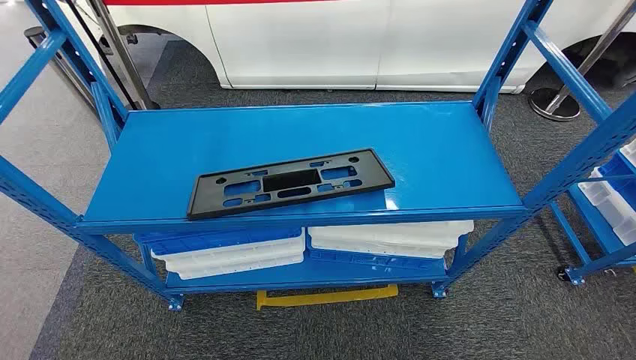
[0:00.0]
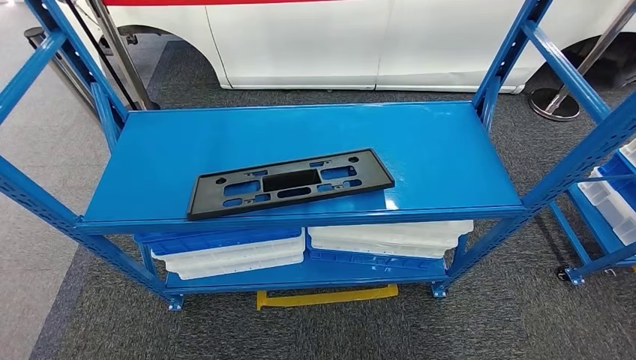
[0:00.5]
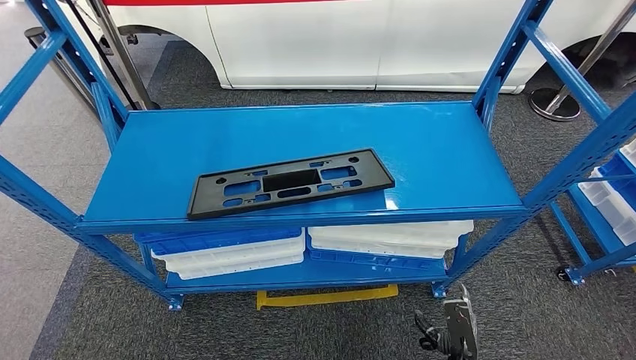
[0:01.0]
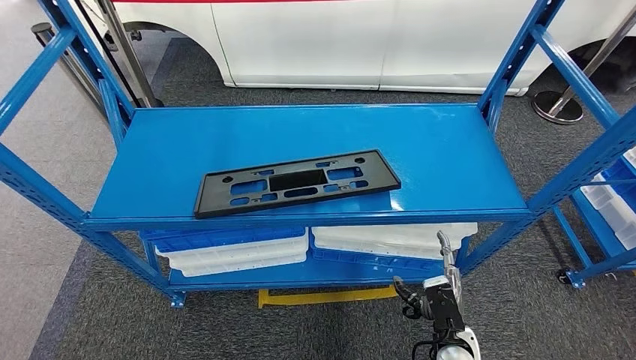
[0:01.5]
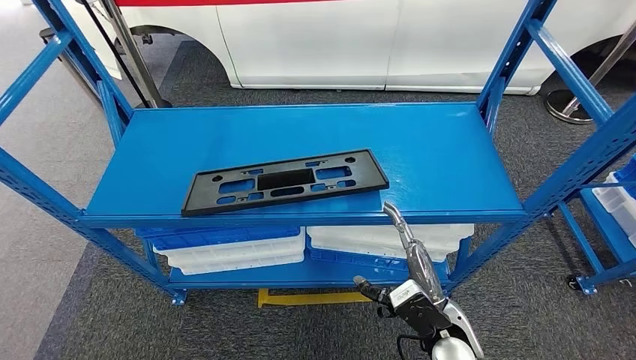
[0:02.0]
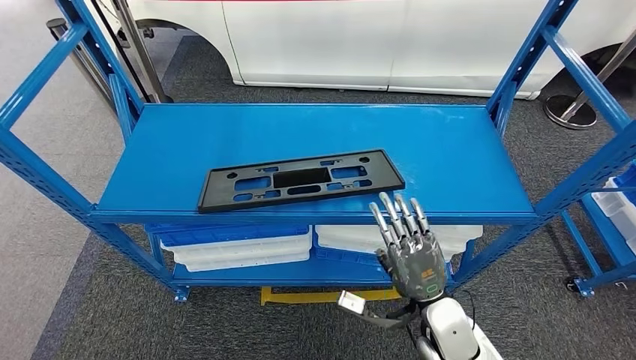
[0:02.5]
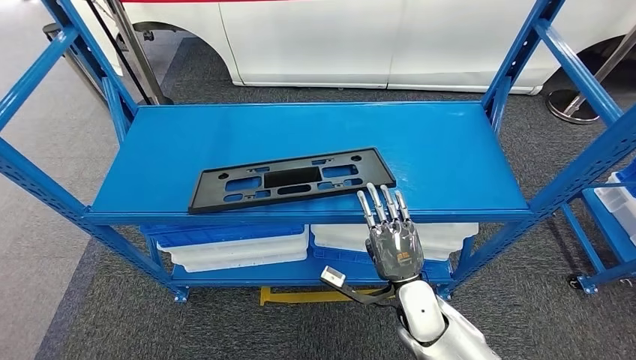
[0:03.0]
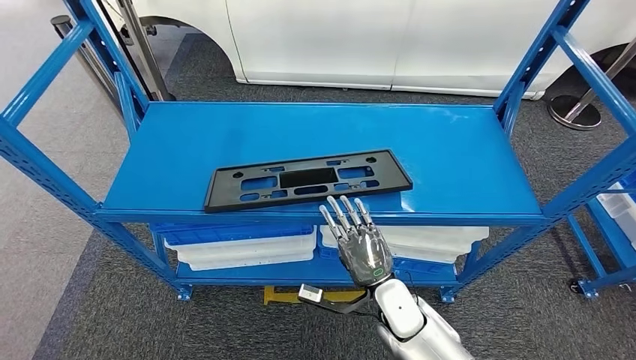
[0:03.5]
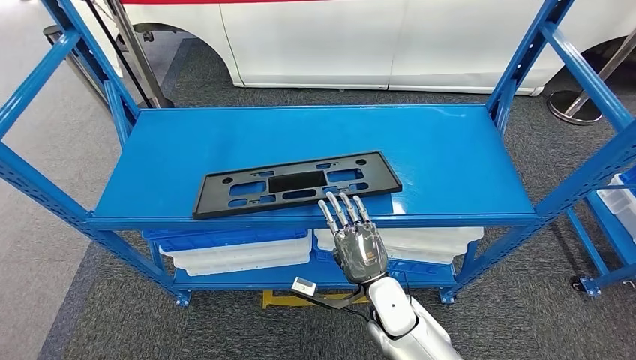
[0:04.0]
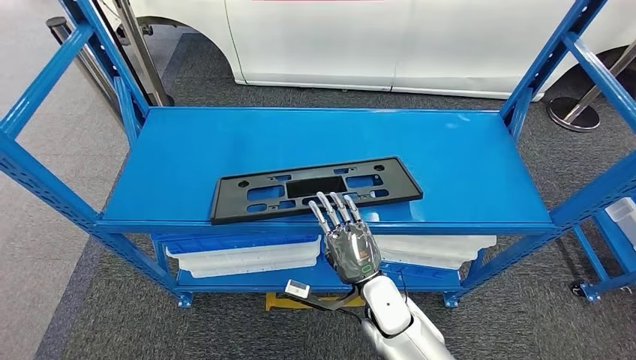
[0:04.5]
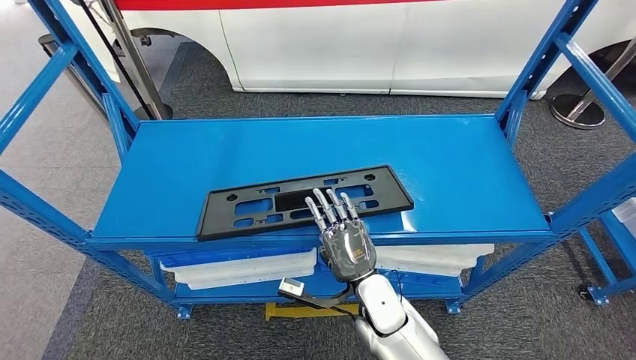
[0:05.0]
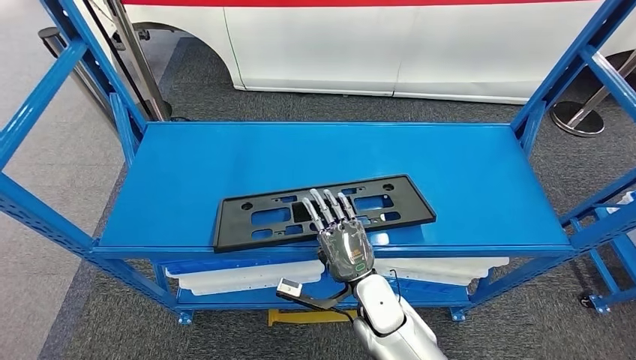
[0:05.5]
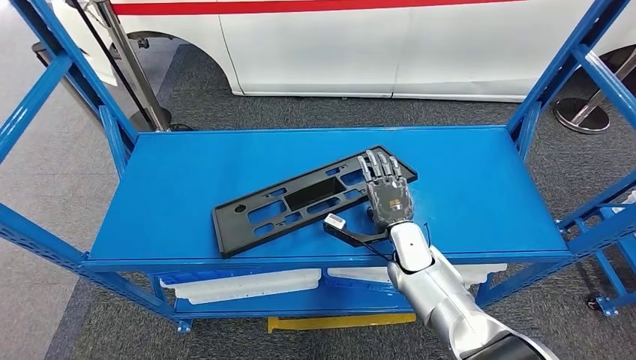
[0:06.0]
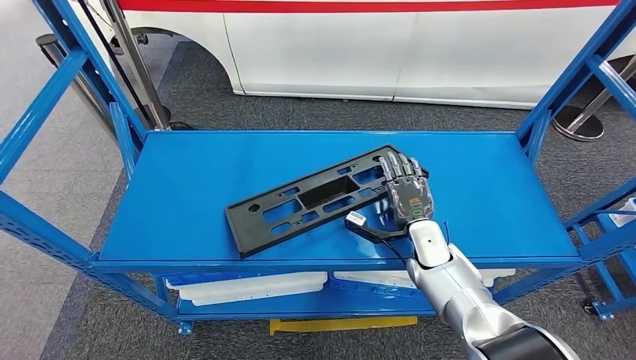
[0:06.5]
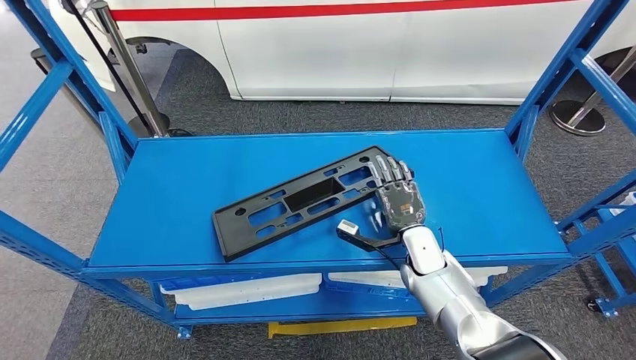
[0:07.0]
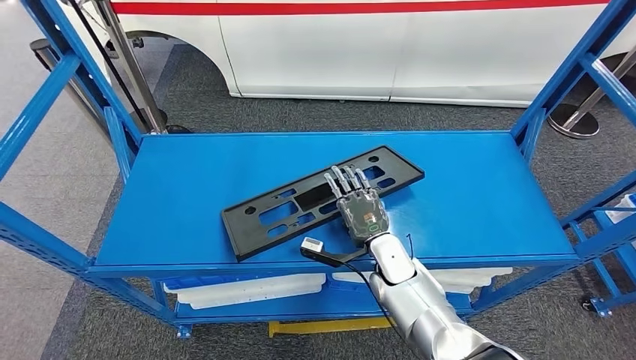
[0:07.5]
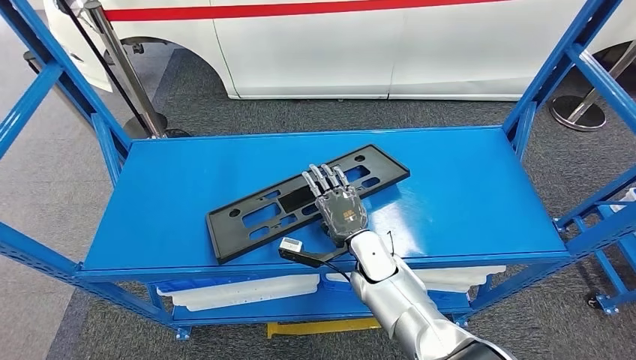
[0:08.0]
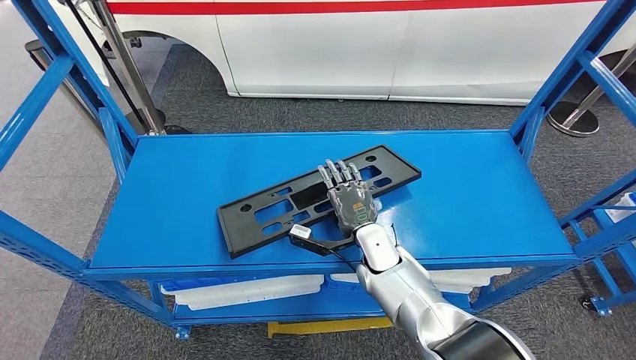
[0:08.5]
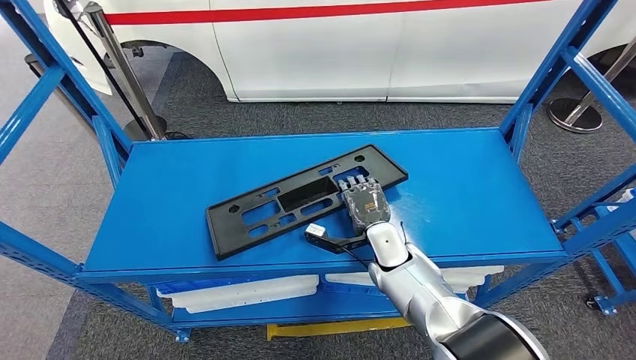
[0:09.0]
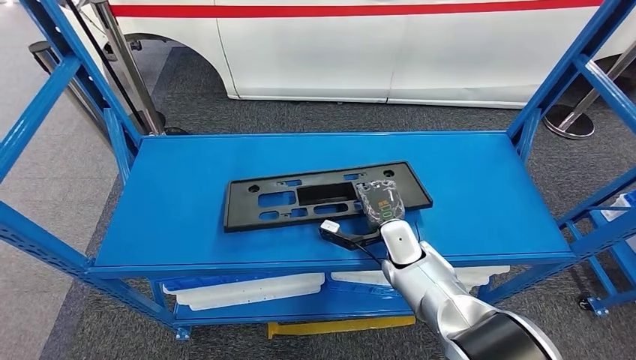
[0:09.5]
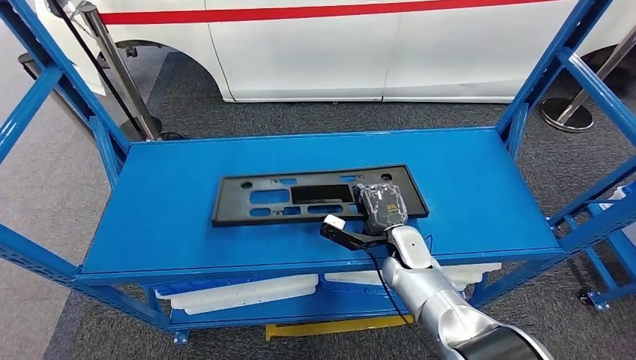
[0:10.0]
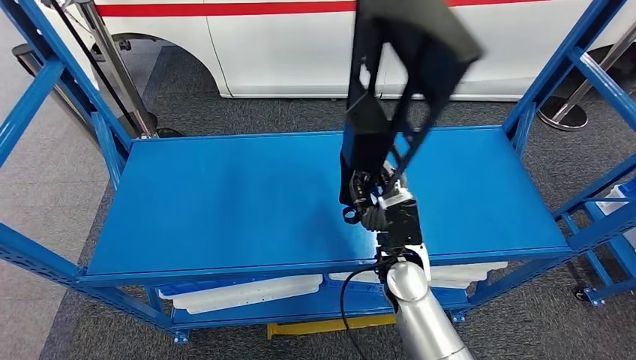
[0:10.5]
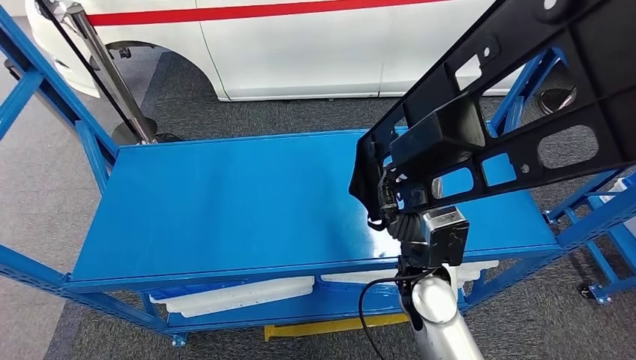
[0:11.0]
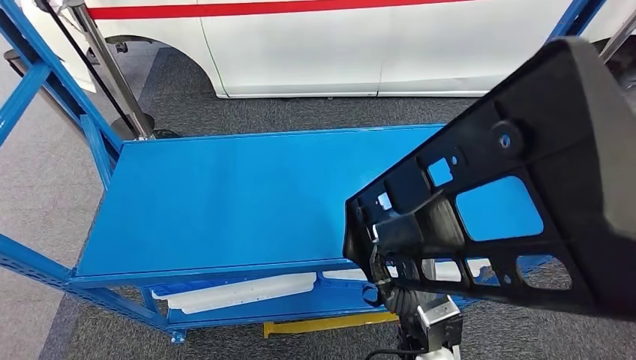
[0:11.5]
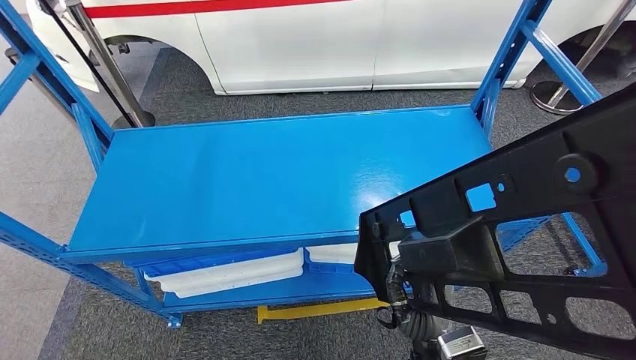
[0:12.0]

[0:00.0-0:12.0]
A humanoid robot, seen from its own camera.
Step, 0:00.0 to 0:11.5: Pick up the large material from the shelf.

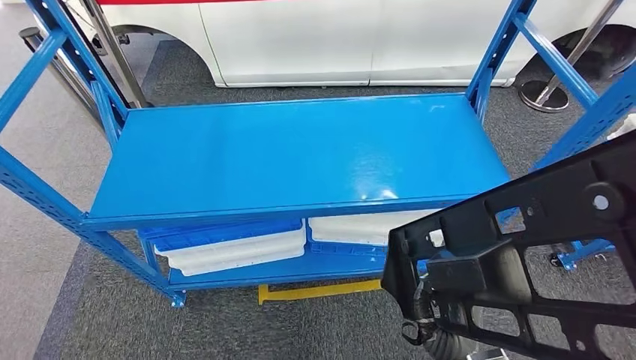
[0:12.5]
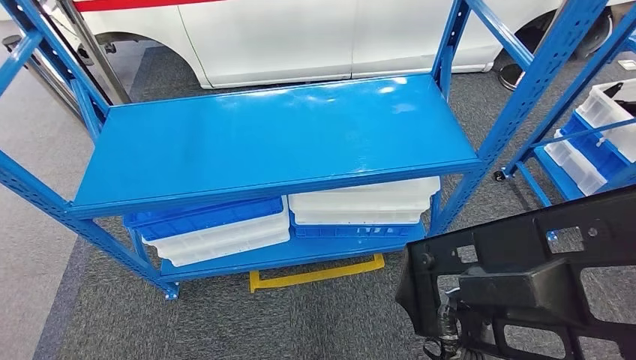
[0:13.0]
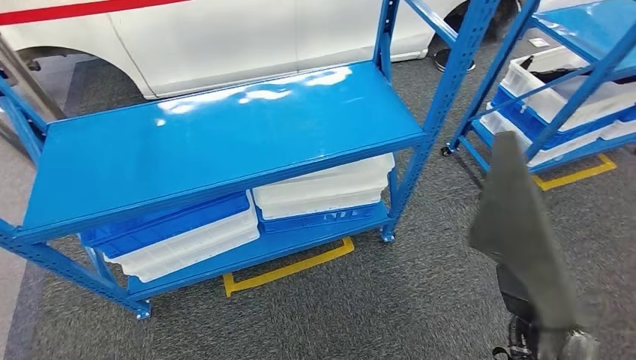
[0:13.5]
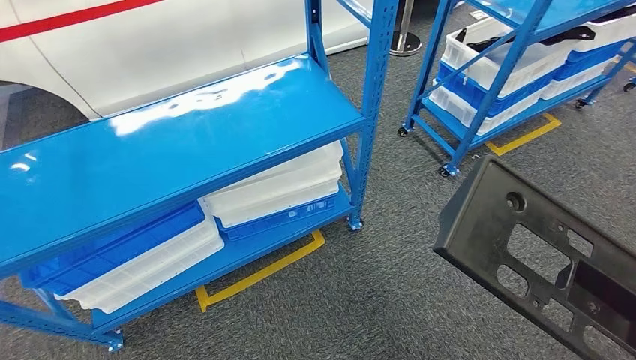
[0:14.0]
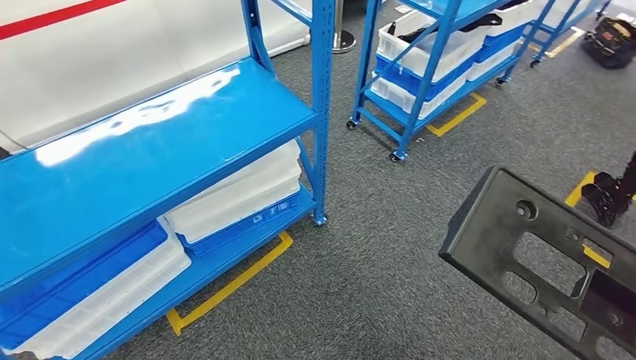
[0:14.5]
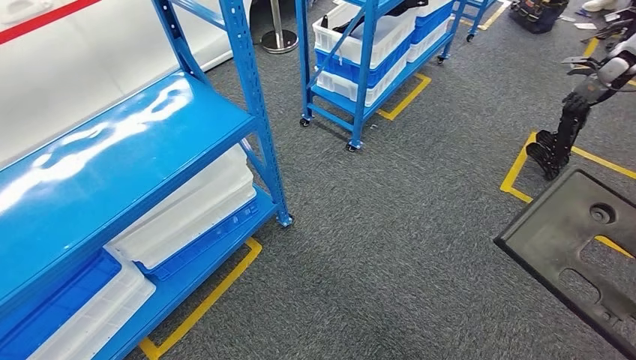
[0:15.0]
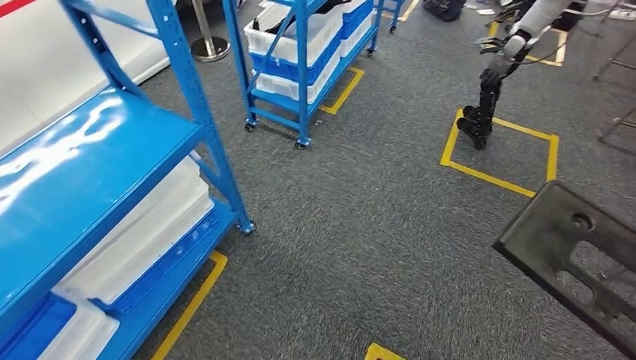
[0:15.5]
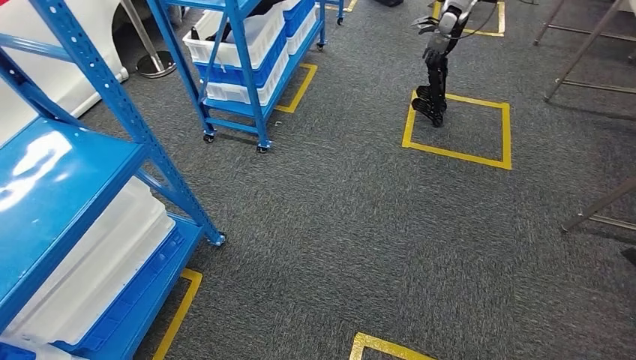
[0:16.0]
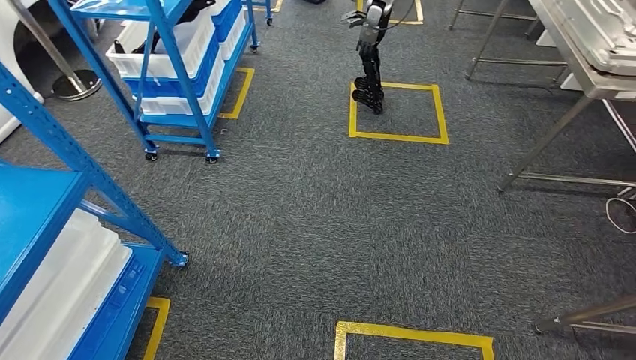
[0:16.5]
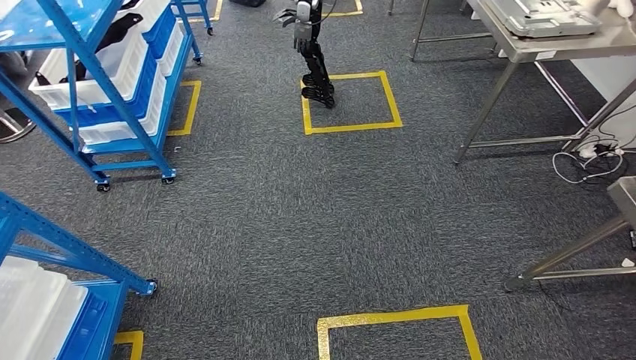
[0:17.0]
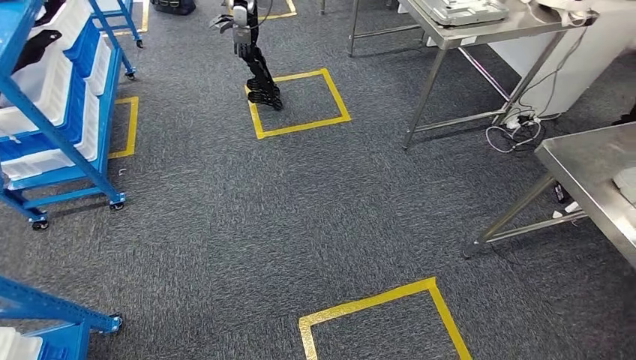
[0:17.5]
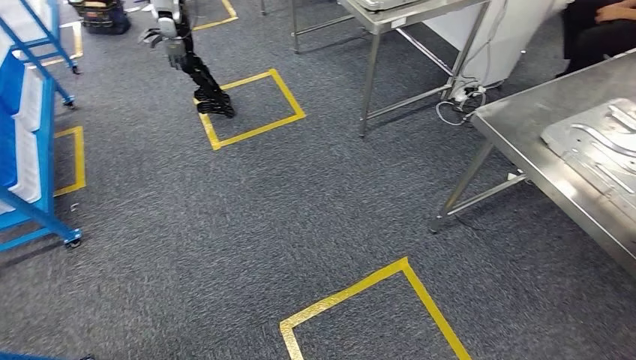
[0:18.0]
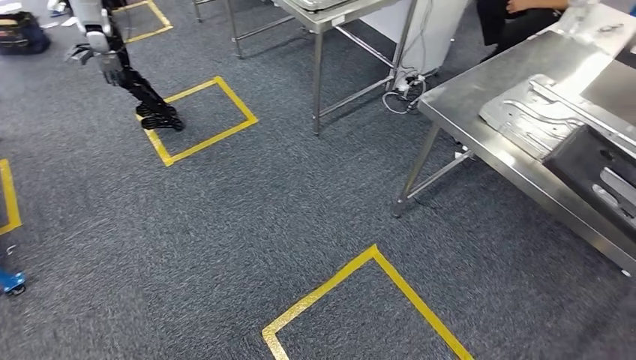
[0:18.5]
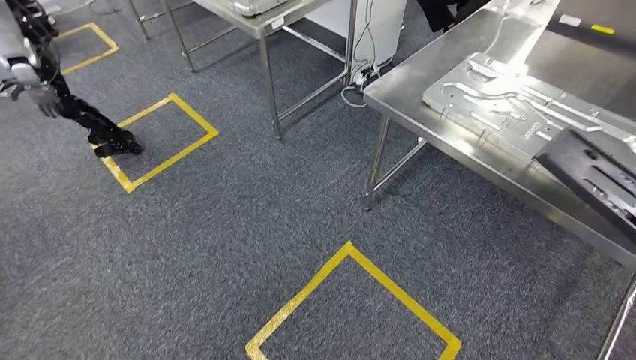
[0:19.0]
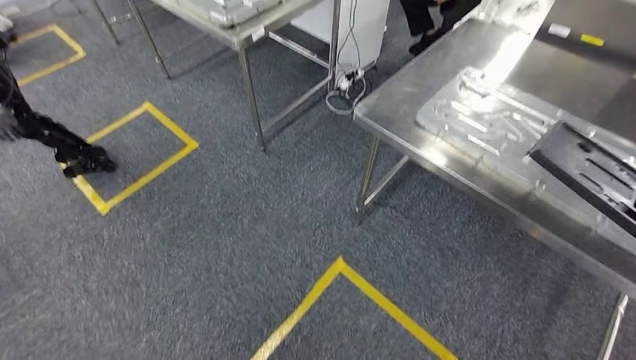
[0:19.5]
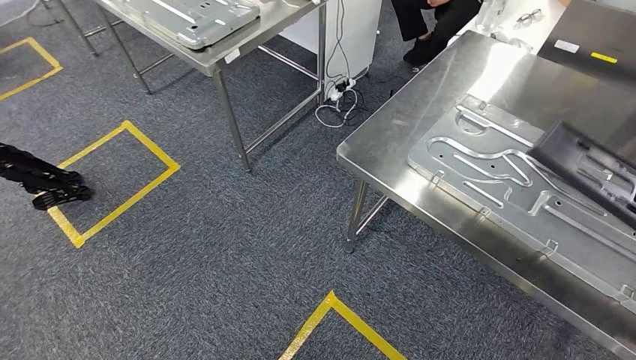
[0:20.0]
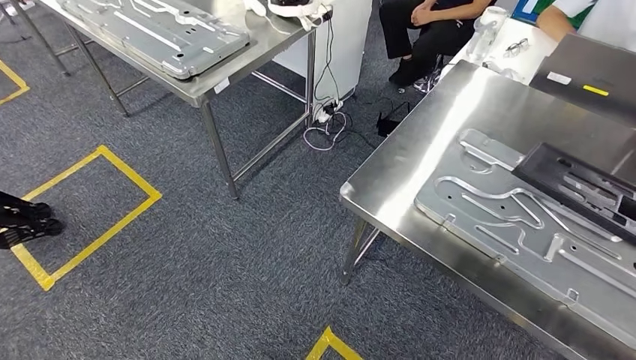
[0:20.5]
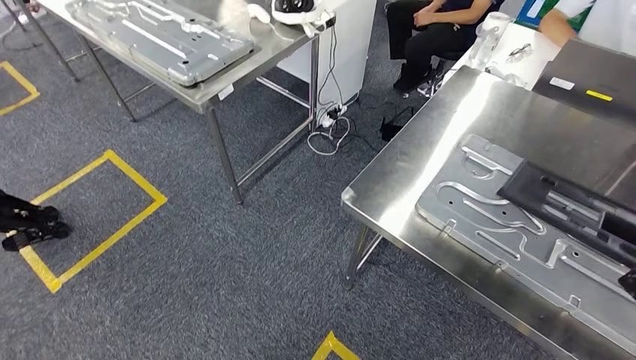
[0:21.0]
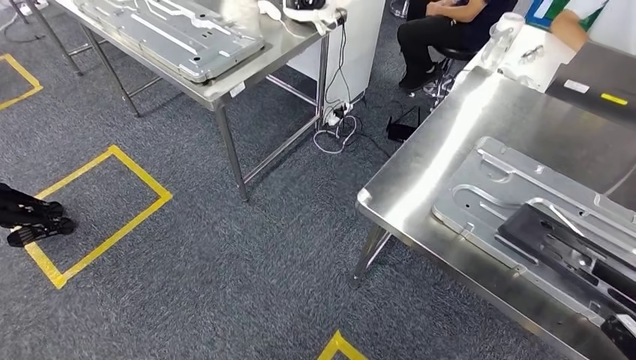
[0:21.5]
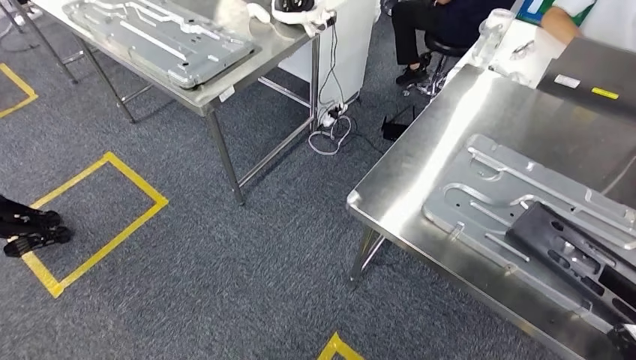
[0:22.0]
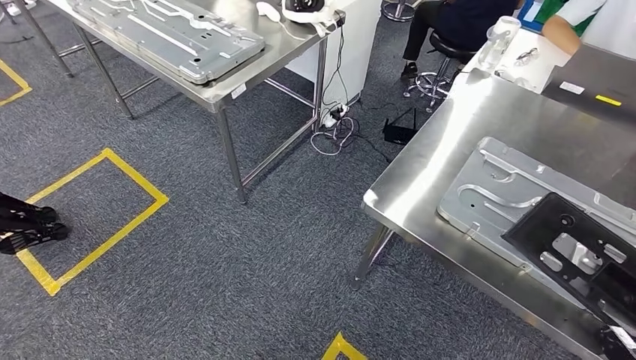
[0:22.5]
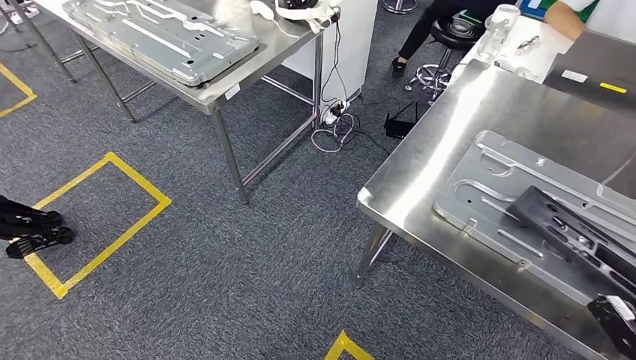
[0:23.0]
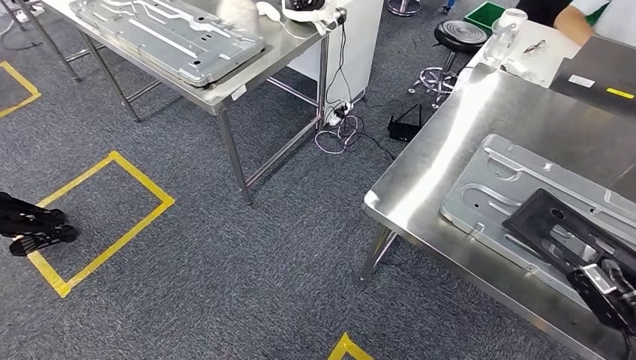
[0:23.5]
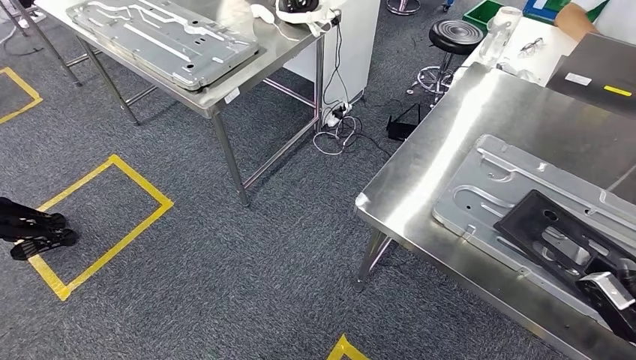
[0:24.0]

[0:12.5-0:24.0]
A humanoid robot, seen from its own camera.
Step, 0:12.5 to 0:20.0: Move the large material to the front of the workbench.
